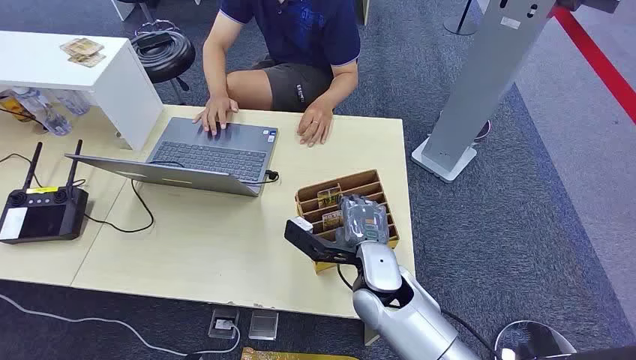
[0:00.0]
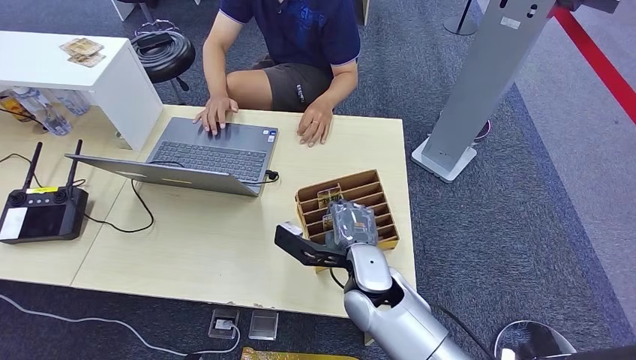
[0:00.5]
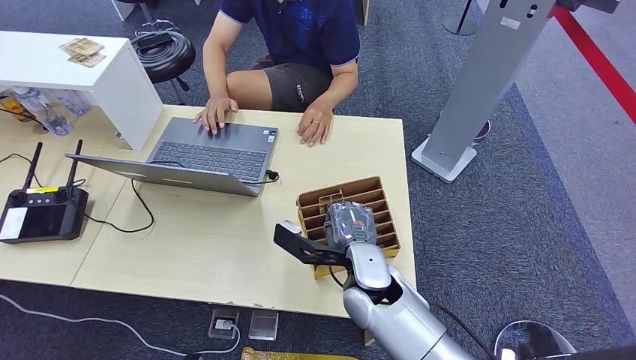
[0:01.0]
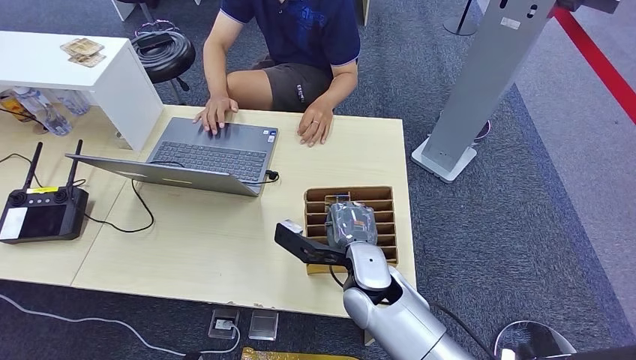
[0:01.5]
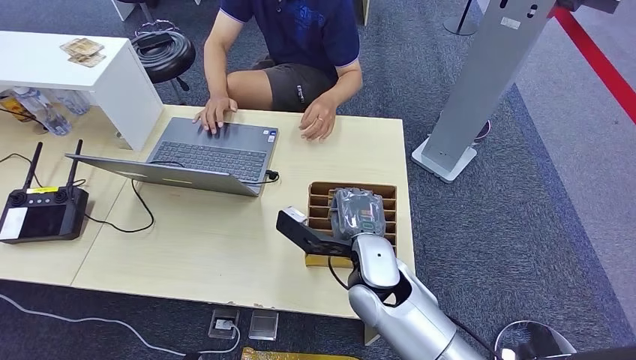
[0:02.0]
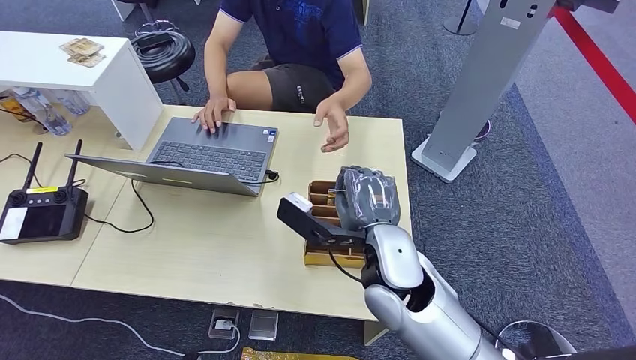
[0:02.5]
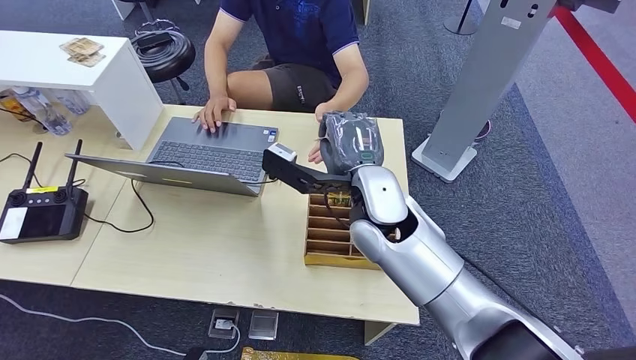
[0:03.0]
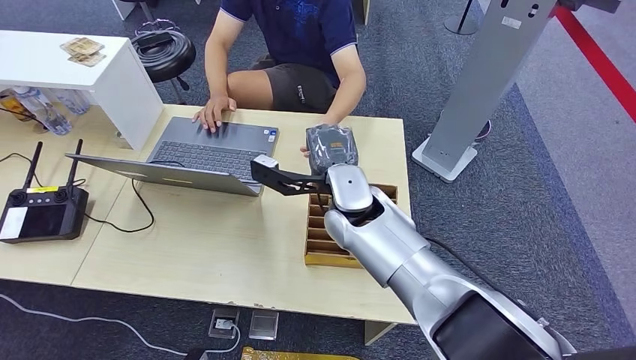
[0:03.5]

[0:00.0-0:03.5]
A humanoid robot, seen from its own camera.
Step, 0:00.0 to 0:01.5: Pick up the room card from the card holder.
Step, 0:02.5 to 0:03.5: Hand the room card to the target.
0:02.0 to 0:03.5: The right hand travels forward and upward by approximately 10 cm.
